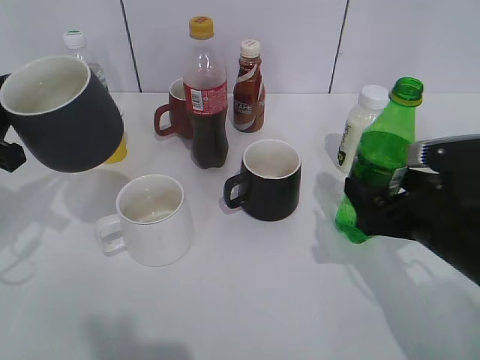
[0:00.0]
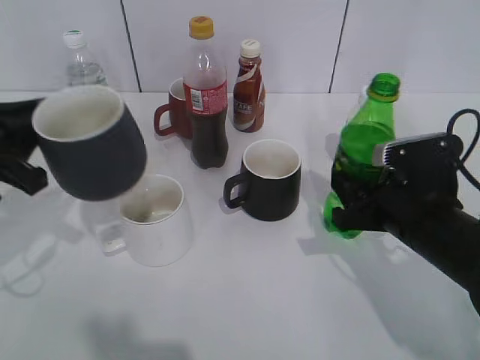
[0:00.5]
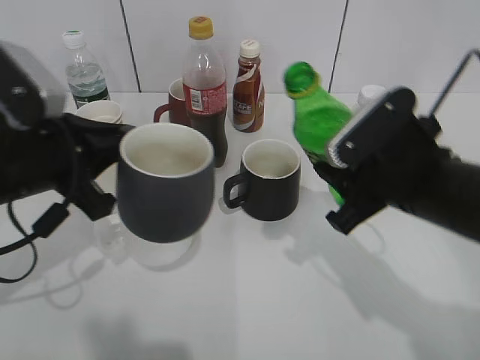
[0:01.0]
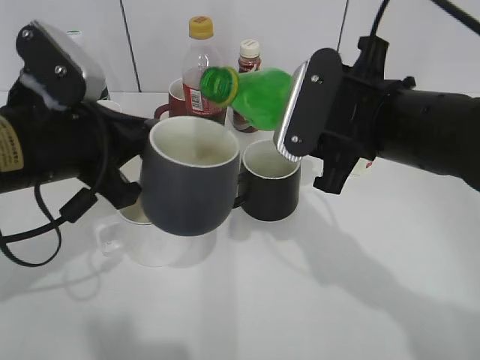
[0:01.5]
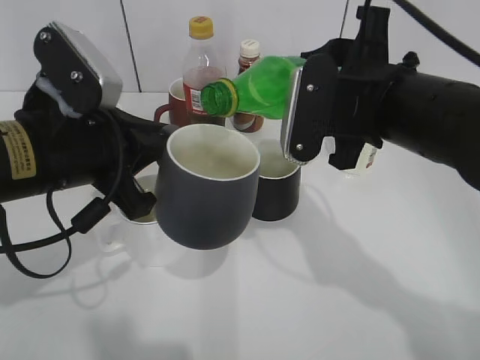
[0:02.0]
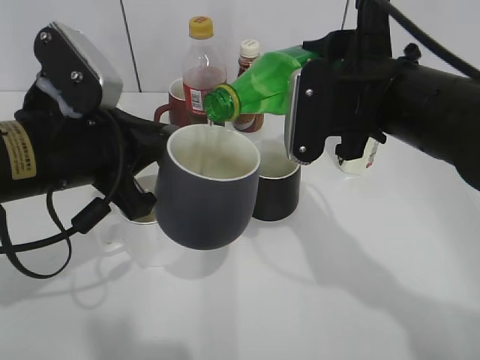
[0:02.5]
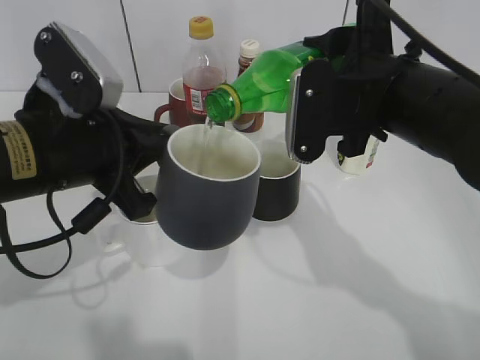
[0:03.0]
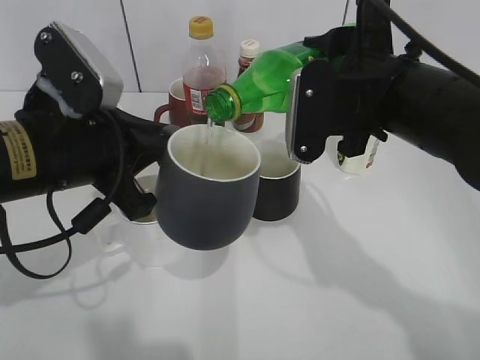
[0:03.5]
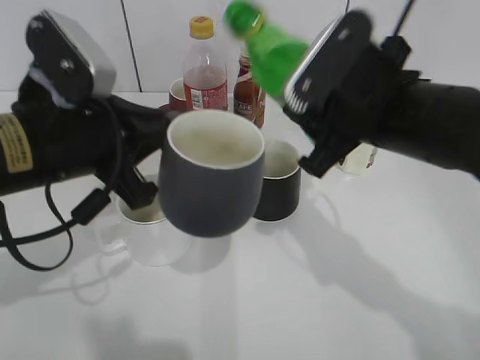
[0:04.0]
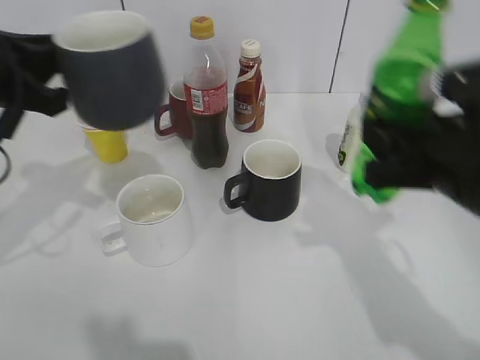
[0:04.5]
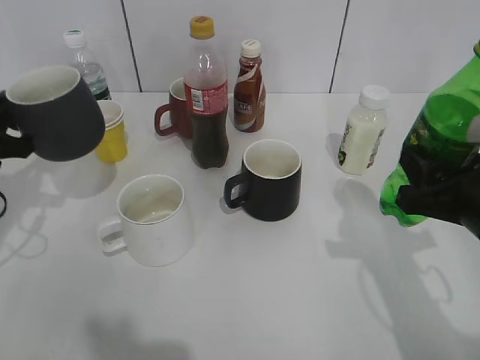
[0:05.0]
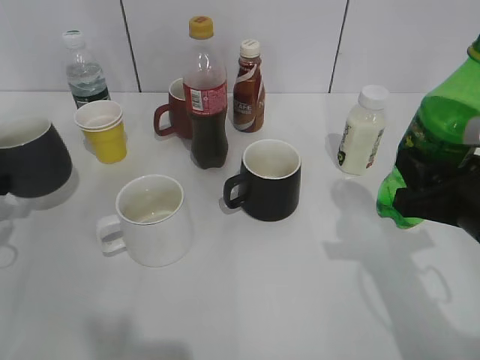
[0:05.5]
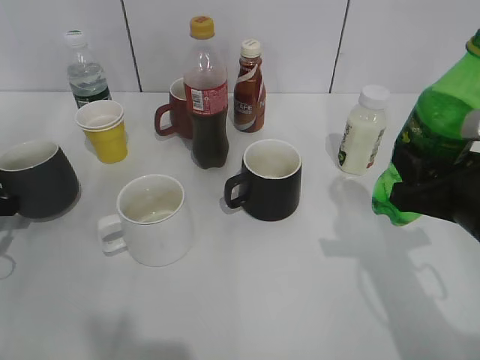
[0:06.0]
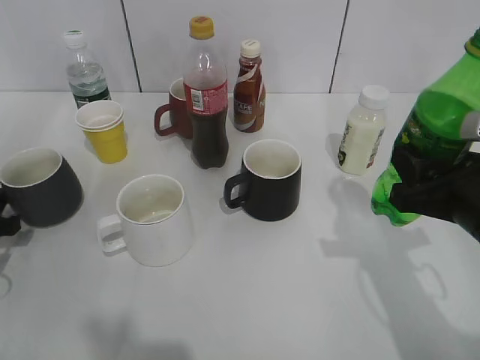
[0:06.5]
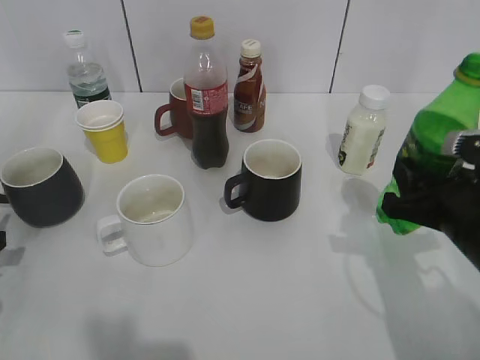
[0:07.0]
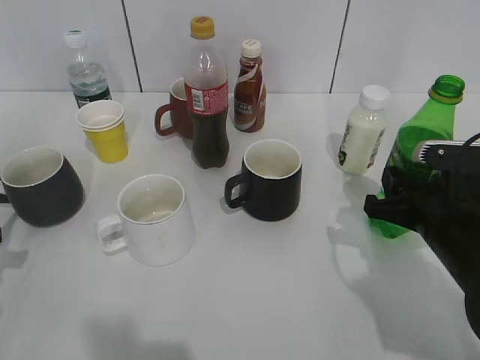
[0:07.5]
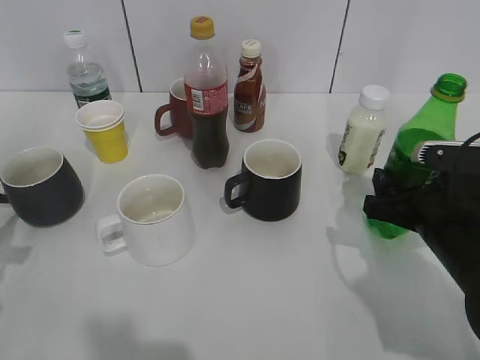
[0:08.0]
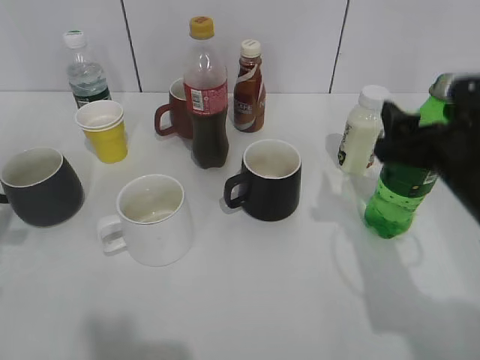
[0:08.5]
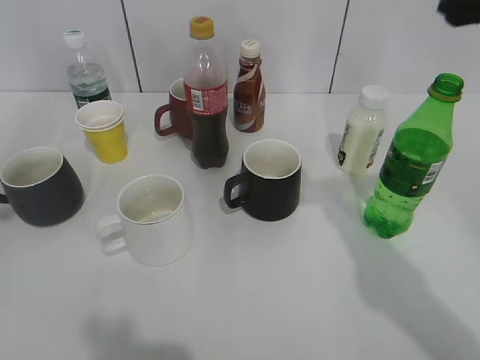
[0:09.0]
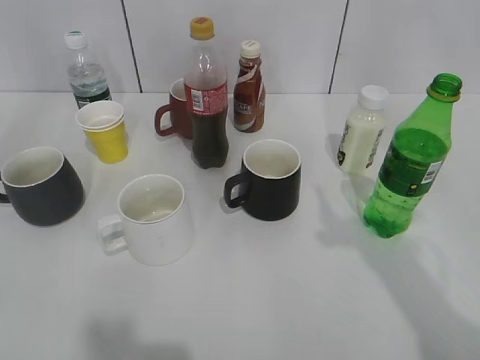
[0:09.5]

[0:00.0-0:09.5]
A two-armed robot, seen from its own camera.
Step, 0:00.5 to 0:04.0: Pour the sprite from bottle to cup with right gripper.
Step, 0:04.5 to 0:06.5: Place the grey cup on the table with left gripper.
Step, 0:07.0 to 0:08.0: Place the sprite bottle on the table with right gripper.
0:00.0 to 0:02.0: The right gripper is displaced upward and to the left by approximately 15 cm, and closes up. Meanwhile the left gripper heads to the right, covering roughly 15 cm.
0:04.0 to 0:05.5: The left gripper travels to the left and downward by roughly 25 cm. The right gripper travels to the right, backward and downward by some 15 cm.
0:05.5 to 0:07.5: The right gripper heads downward, covering roughly 5 cm. The left gripper heads backward, covering some 5 cm, and opens up.
0:07.5 to 0:09.5: The right gripper heads upward, covering approximately 25 cm, and opens its fingers, while the left gripper moves upward and backward, about 30 cm.

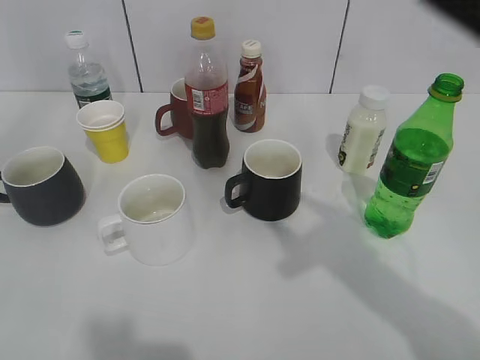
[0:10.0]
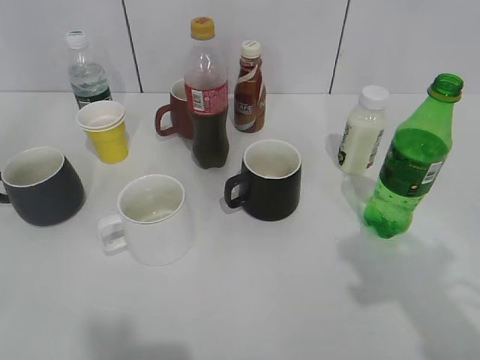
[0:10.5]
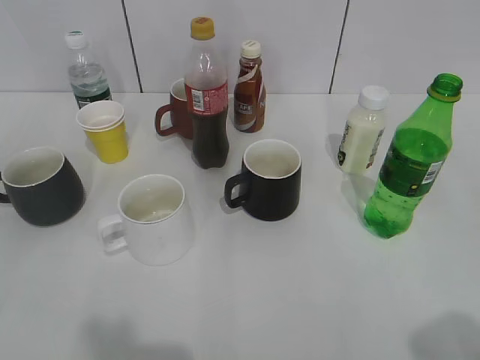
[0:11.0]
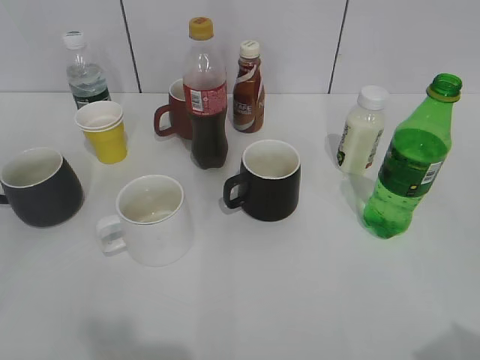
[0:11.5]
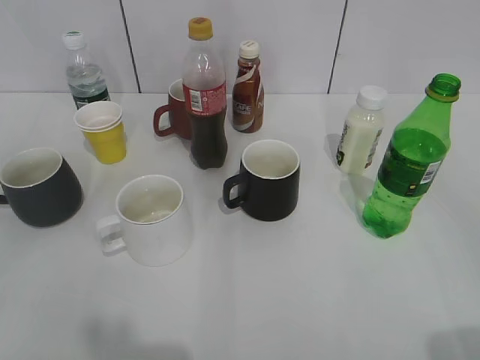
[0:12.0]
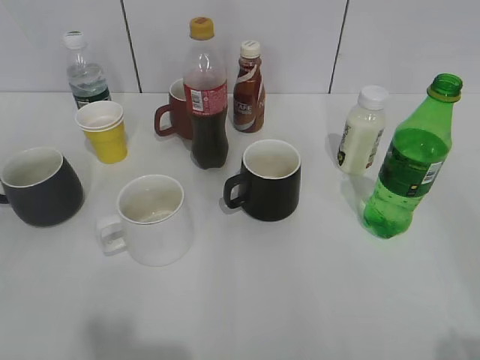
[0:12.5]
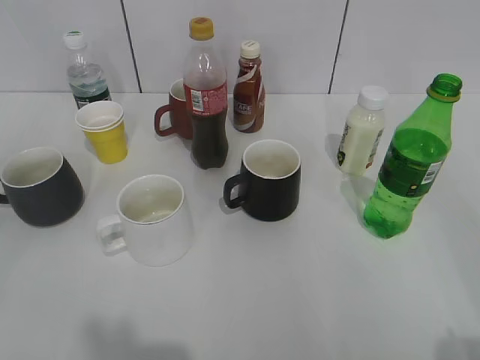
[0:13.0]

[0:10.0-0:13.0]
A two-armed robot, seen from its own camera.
0:10.0 to 0:11.5: The left gripper heads downward and backward, covering about 10 cm; the right gripper shifts some 15 cm backward and to the right.

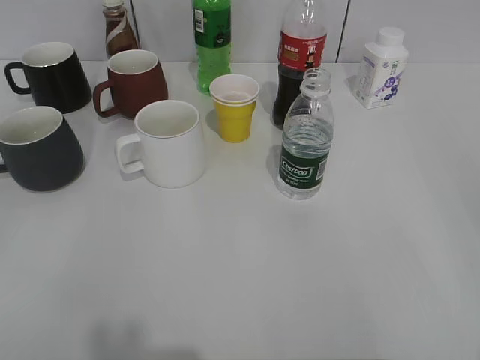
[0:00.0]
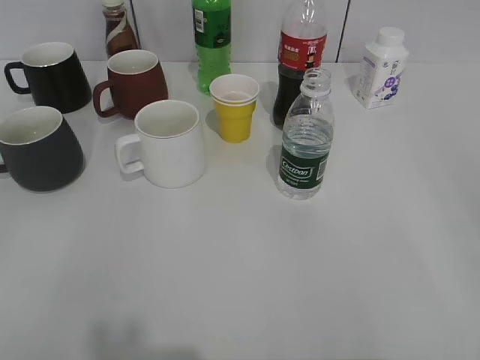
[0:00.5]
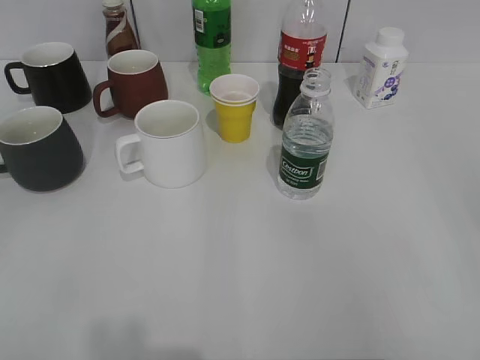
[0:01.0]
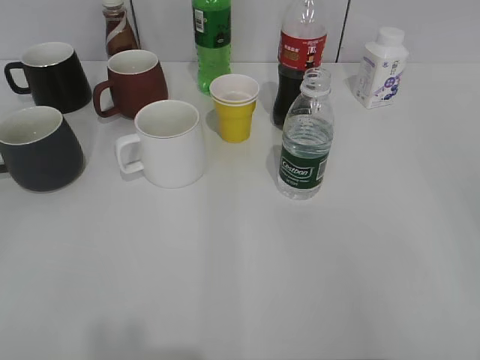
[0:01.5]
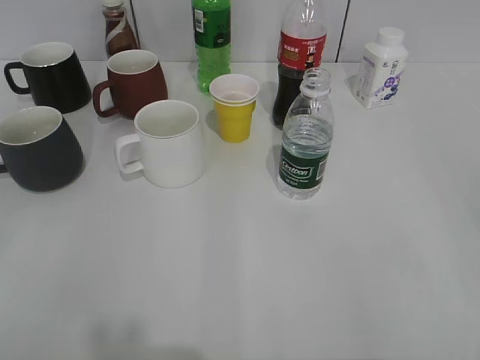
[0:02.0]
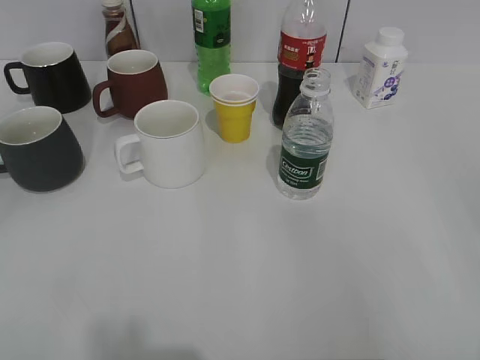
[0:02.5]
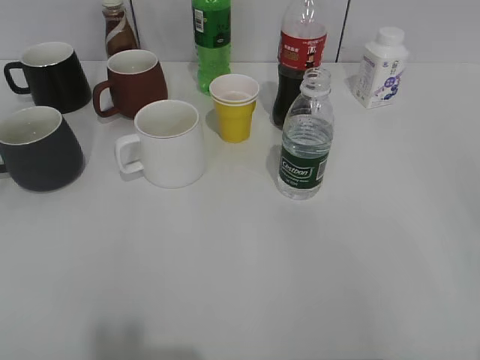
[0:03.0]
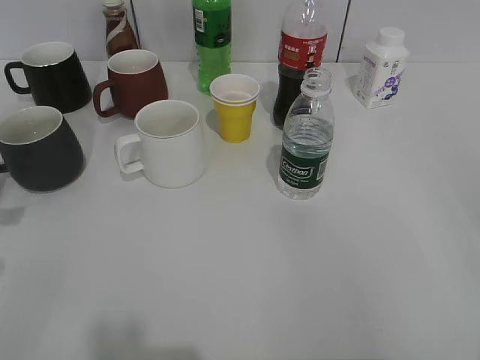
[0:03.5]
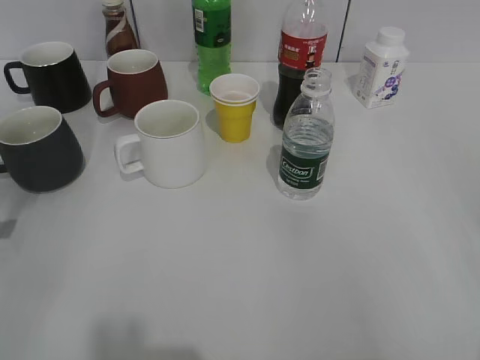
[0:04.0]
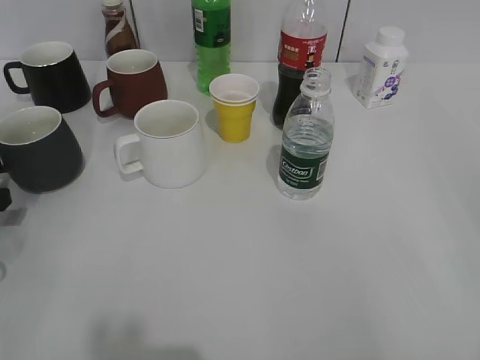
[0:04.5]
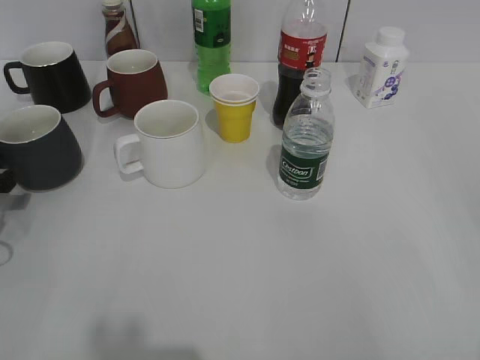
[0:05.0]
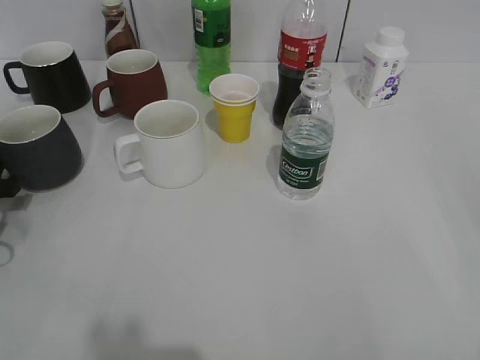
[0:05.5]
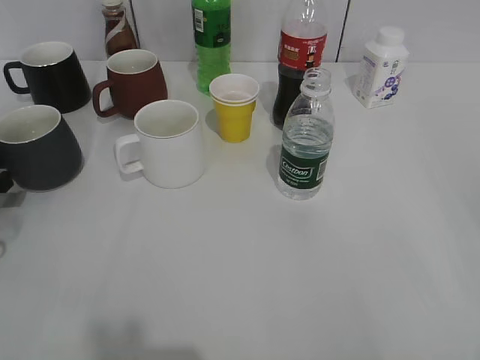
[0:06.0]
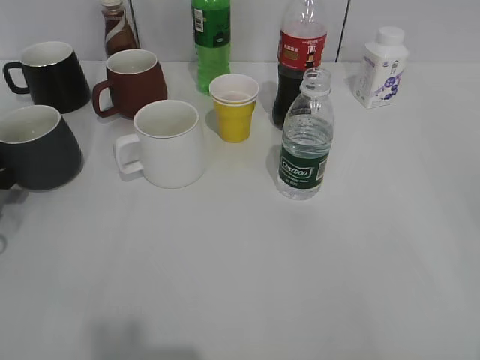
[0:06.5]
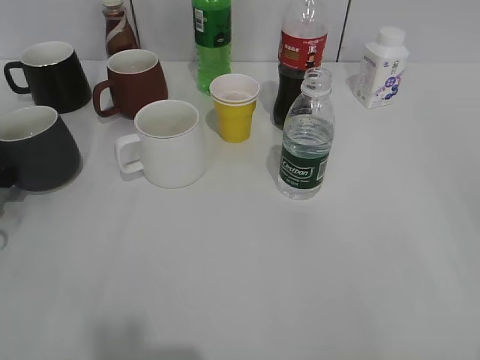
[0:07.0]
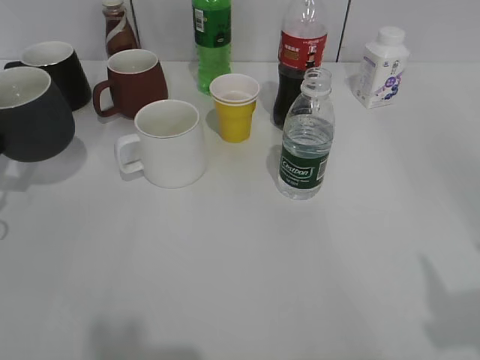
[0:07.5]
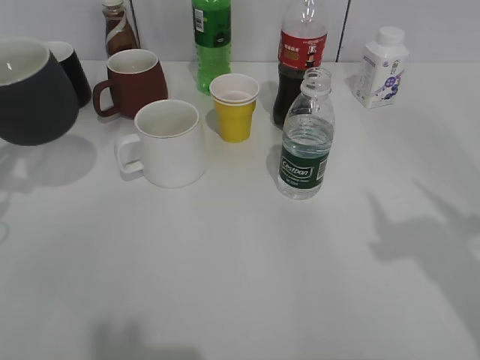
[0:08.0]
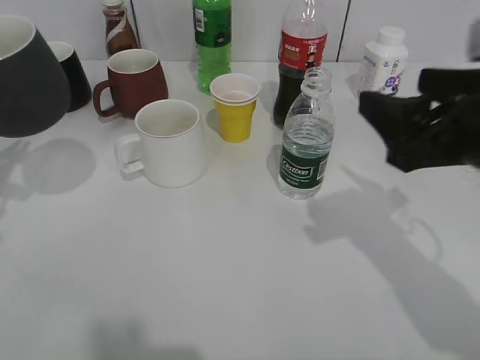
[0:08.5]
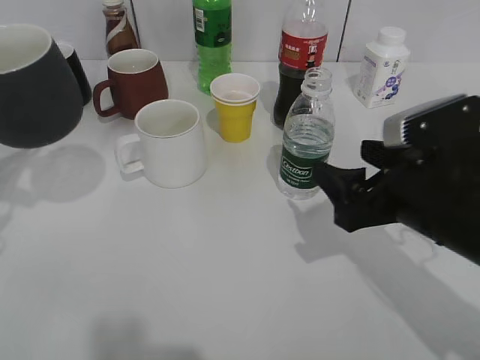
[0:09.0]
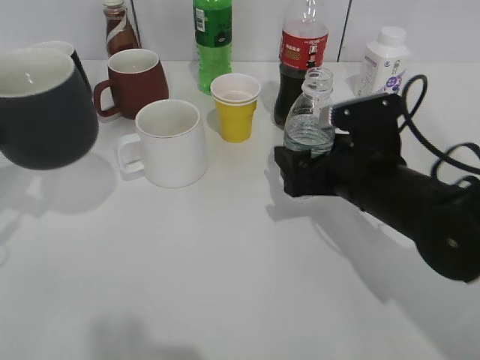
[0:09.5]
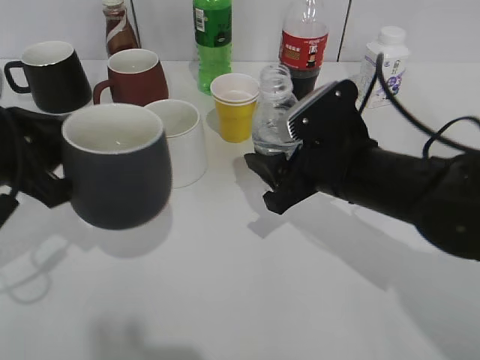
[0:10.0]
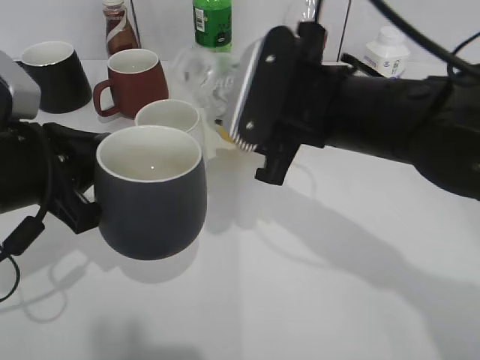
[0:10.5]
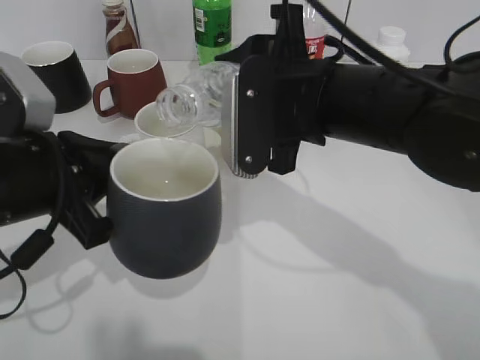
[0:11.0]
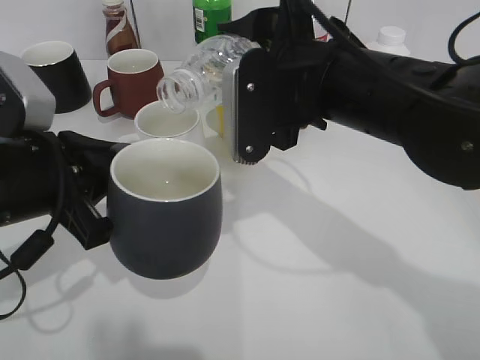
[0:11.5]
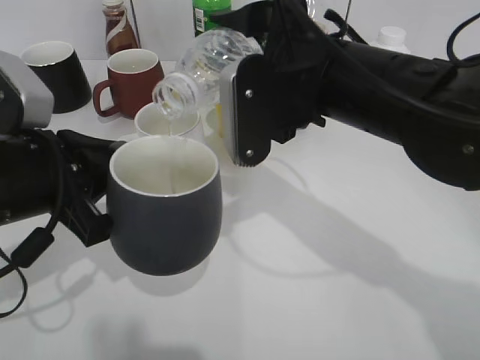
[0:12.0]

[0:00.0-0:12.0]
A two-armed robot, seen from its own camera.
Step, 0:07.0 to 0:07.5: Lift the black cup with left gripper.
Step, 0:08.5 to 0:09.5: Grasp the bottle with water with right gripper.
0:02.0 to 0:04.0: The left gripper heads forward and downward, covering roughly 25 cm.
0:04.0 to 0:06.0: The left gripper moves forward, approximately 5 cm.
0:06.0 to 0:08.0: The right gripper is displaced forward by roughly 15 cm; the left gripper is displaced upward by about 10 cm, and closes.
0:08.0 to 0:10.0: The left gripper shifts about 10 cm to the right and backward, while the right gripper travels downward, to the left and forward by some 25 cm, and closes its fingers.
0:10.0 to 0:12.0: The left gripper ends up approximately 5 cm from where it was; the right gripper heads upward, covering approximately 10 cm.
